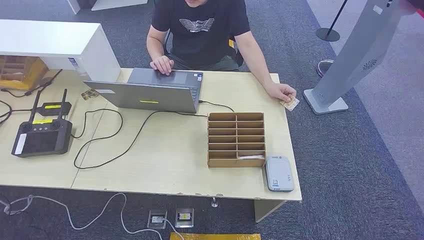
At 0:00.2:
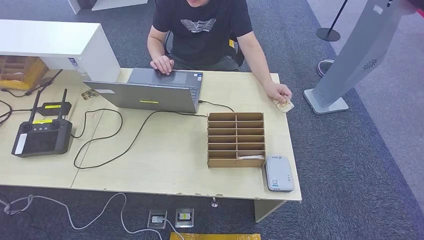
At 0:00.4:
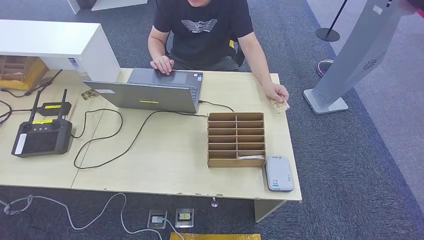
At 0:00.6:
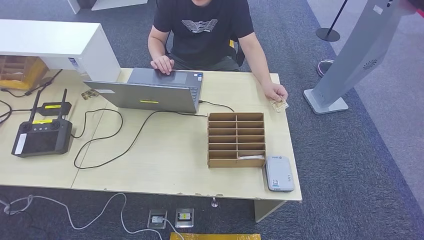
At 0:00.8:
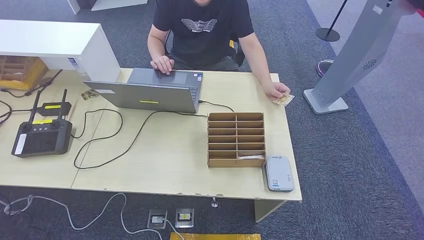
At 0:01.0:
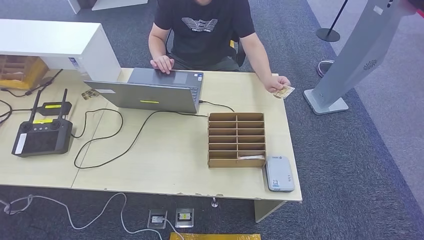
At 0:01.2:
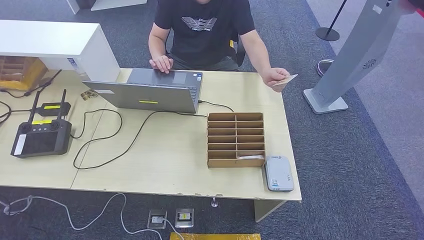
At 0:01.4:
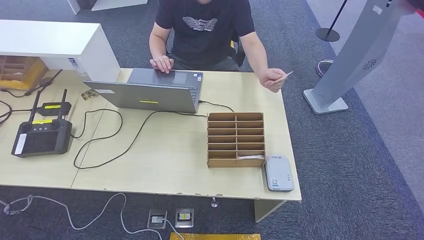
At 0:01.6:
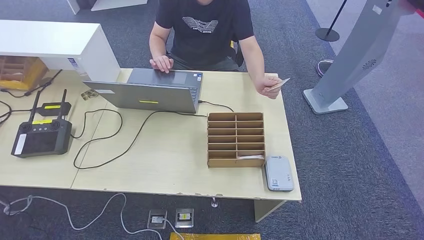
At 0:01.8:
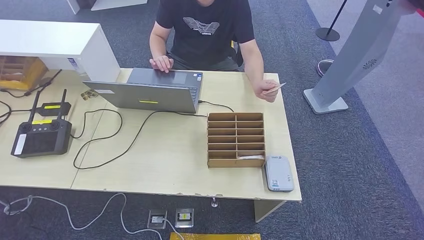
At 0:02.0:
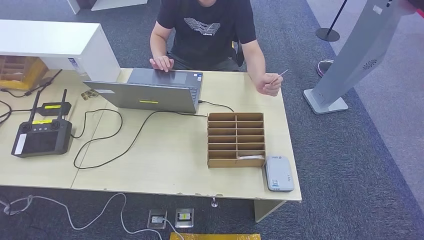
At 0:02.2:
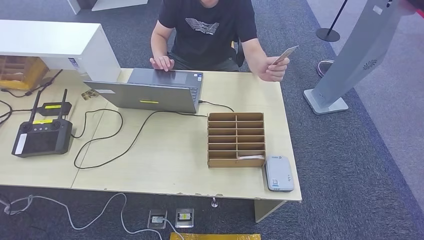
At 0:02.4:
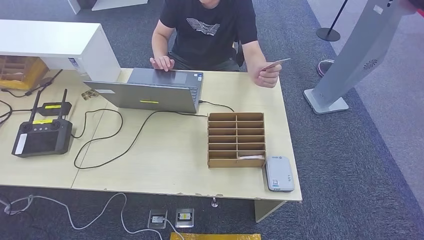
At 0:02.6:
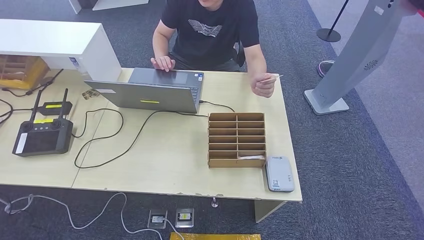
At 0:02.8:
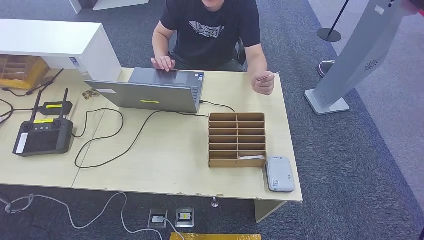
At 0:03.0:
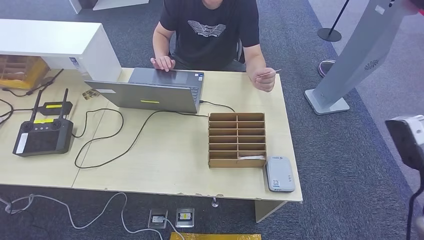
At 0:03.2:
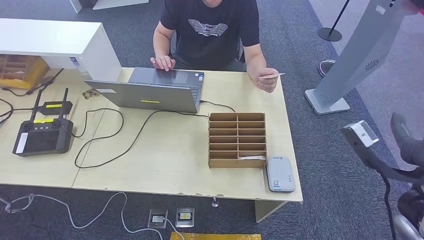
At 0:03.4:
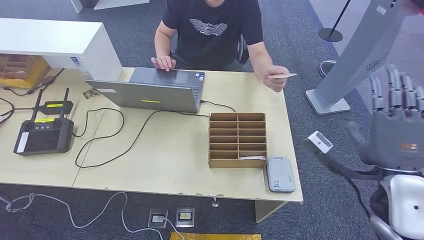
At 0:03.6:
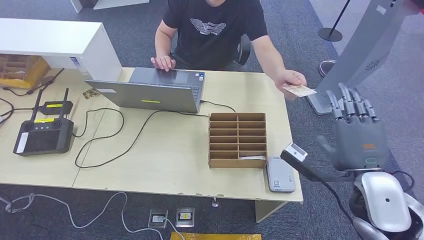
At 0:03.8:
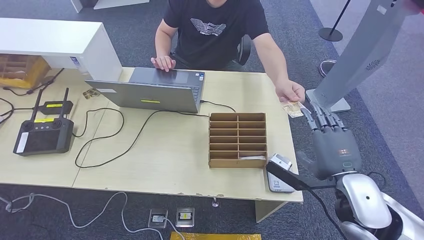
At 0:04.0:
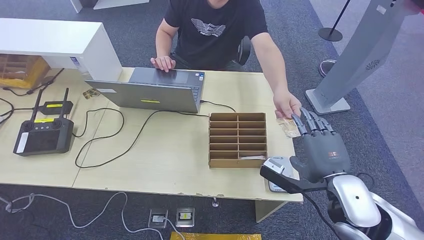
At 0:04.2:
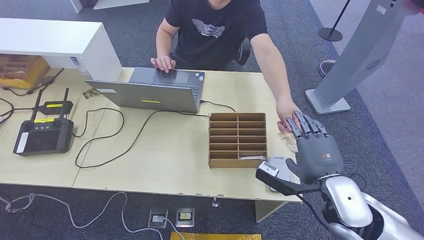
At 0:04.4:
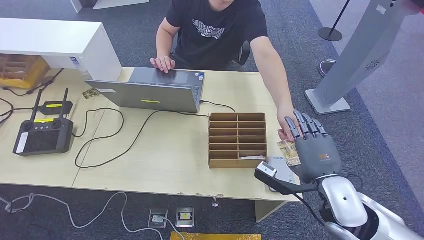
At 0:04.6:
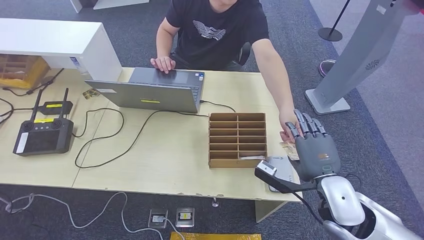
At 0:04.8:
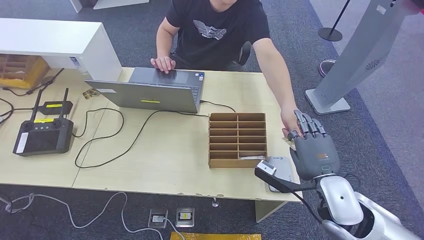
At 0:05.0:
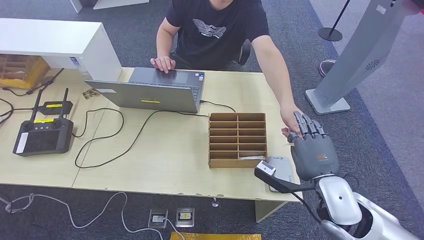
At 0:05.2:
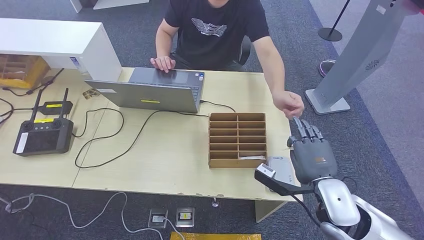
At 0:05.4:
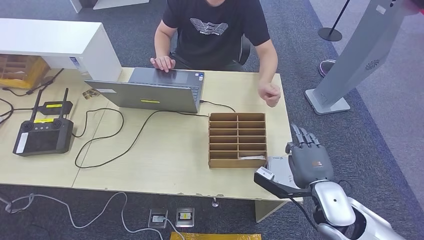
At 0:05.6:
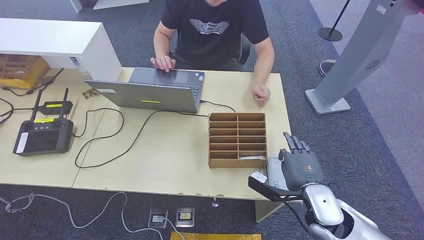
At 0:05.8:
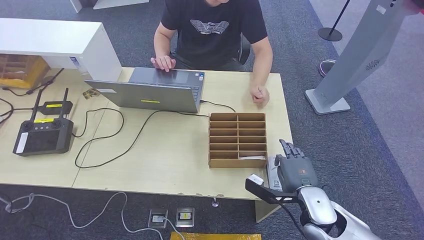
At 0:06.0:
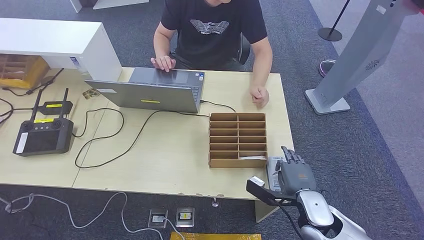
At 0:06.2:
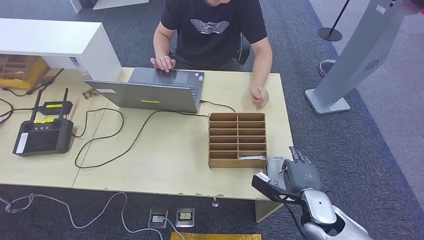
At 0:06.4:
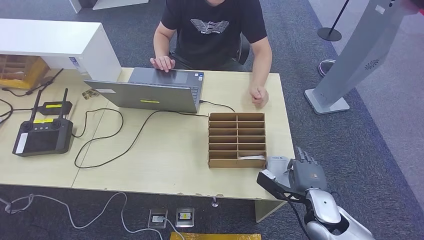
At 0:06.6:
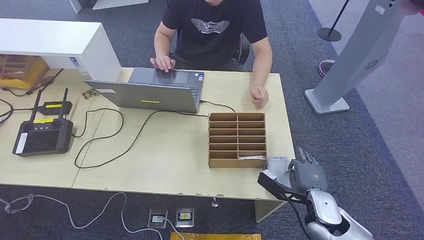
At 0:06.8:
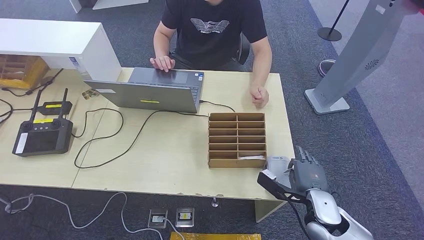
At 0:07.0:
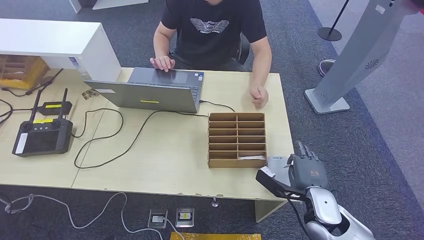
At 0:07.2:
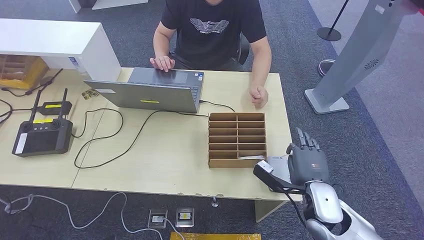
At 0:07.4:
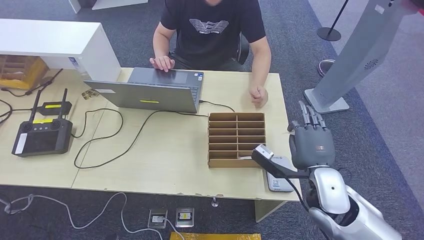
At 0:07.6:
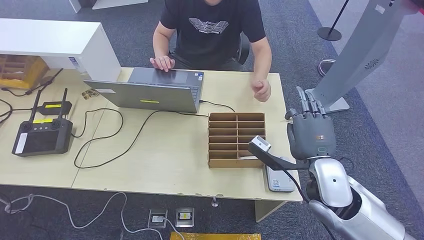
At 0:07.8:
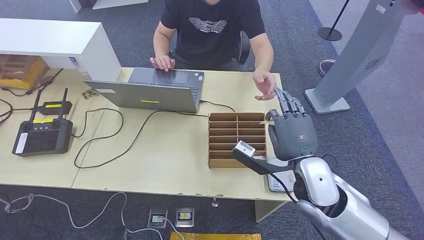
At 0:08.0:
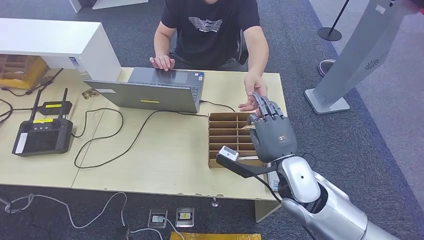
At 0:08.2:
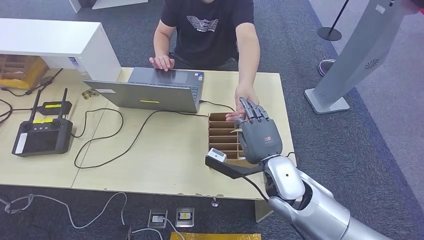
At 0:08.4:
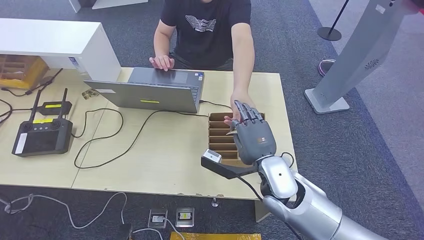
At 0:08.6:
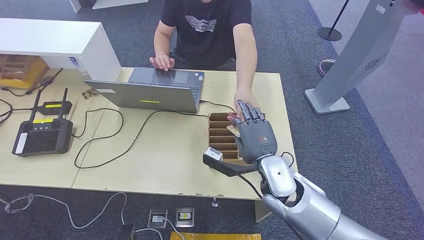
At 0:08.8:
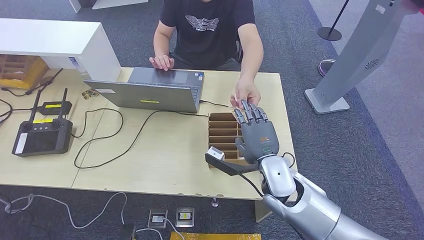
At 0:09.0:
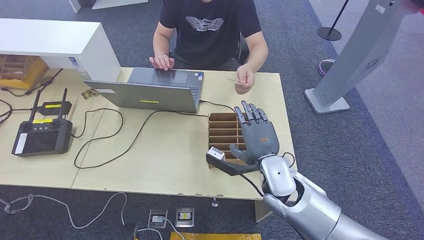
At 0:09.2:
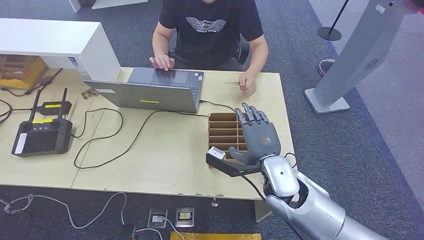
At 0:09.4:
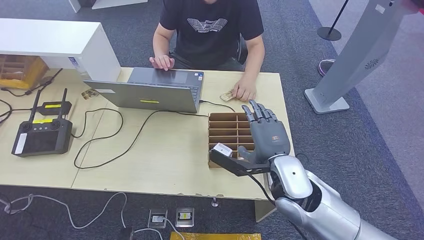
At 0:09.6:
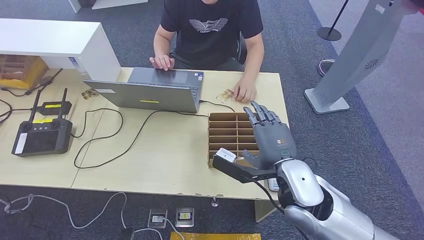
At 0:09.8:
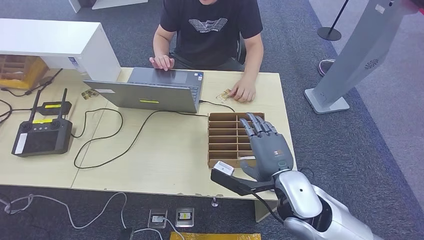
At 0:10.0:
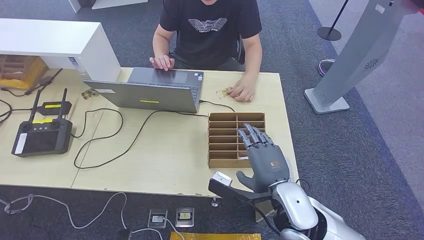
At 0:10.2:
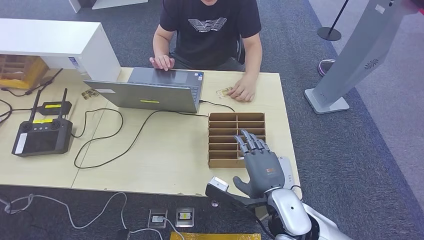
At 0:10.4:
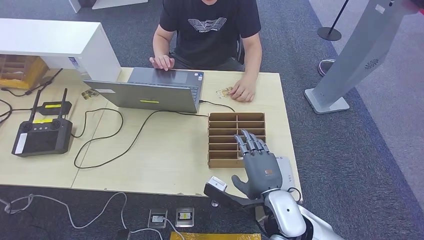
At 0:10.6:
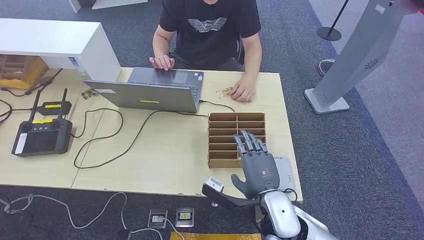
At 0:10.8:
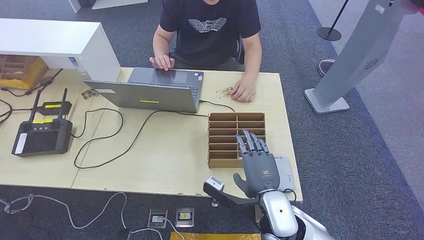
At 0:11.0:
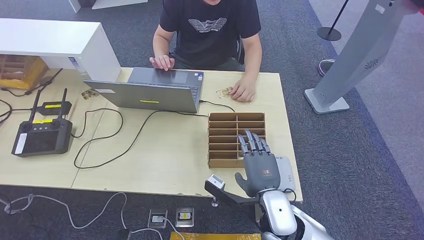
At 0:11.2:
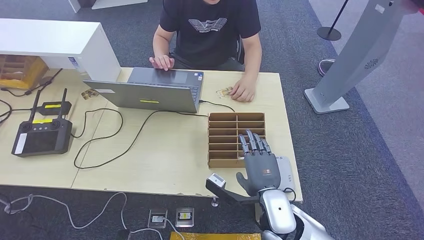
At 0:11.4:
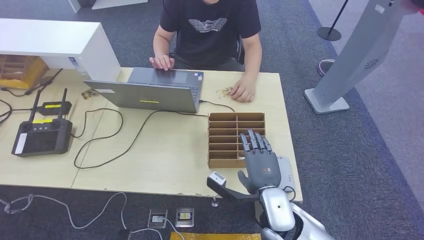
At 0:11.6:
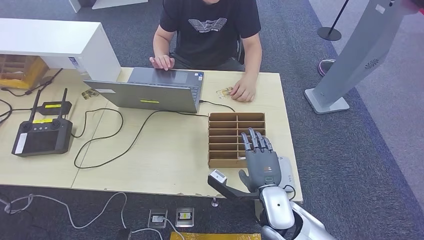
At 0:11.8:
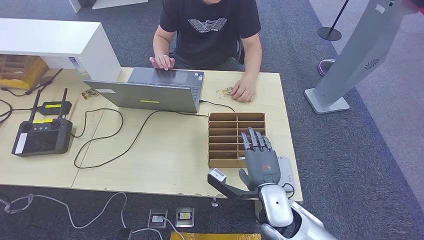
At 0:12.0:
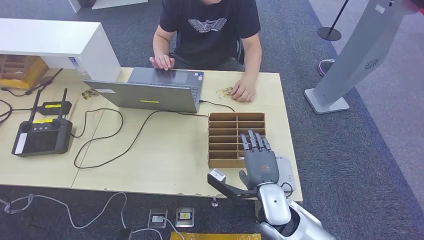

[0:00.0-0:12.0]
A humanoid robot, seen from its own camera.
Step, 0:00.0 to 0:04.8: Take the ID card from the person's hand.
Step, 0:05.0 to 0:07.0: Place the ID card on the card reader.
Step, 0:07.4 to 0:10.0: Hand the ID card to the person.
0:01.6 to 0:03.0: The right hand heads upward and forward, covering roughly 25 cm.
0:03.0 to 0:04.4: The right hand shifts approximately 15 cm to the left and downward.
0:04.4 to 0:06.0: The right hand is displaced downward by about 10 cm.
0:06.0 to 0:07.6: The right hand travels upward by roughly 10 cm.
0:07.6 to 0:09.0: The right hand goes approximately 10 cm to the left.
0:09.0 to 0:10.4: The right hand goes about 10 cm backward.
0:10.4 to 0:12.0: The hands move only a little.

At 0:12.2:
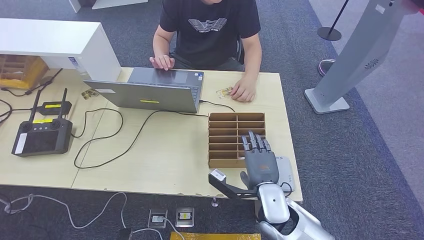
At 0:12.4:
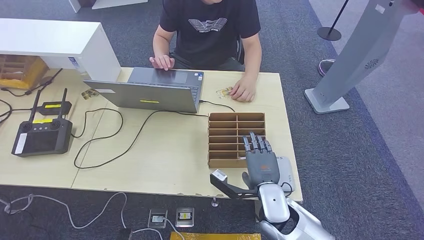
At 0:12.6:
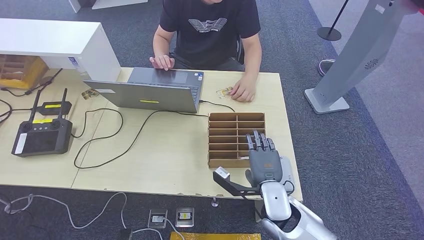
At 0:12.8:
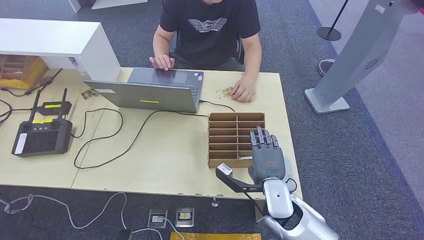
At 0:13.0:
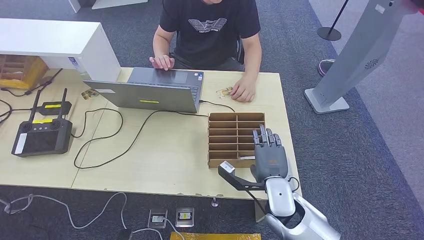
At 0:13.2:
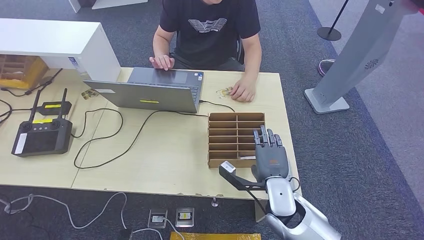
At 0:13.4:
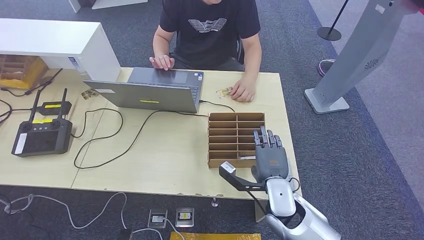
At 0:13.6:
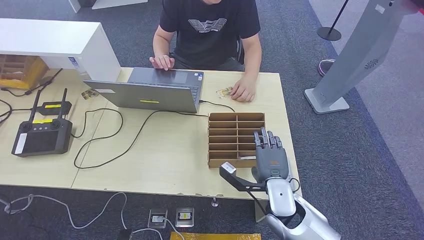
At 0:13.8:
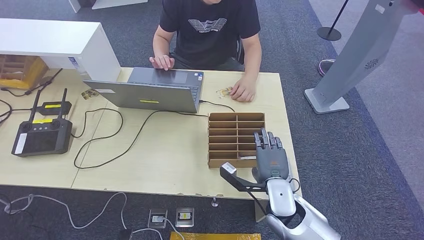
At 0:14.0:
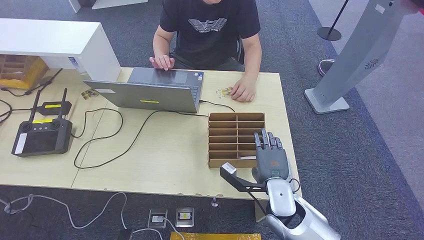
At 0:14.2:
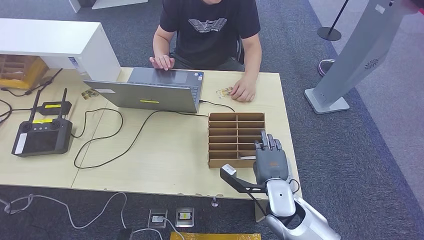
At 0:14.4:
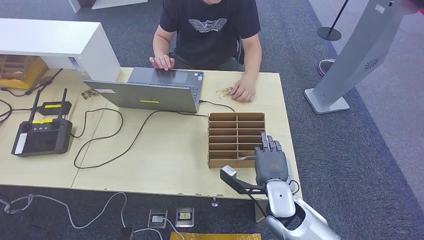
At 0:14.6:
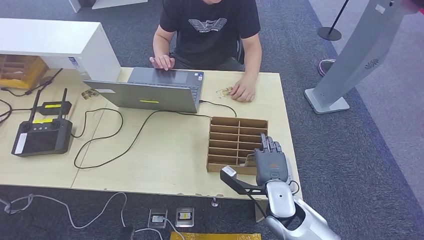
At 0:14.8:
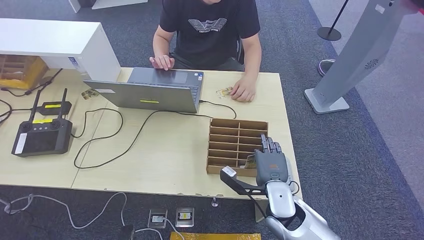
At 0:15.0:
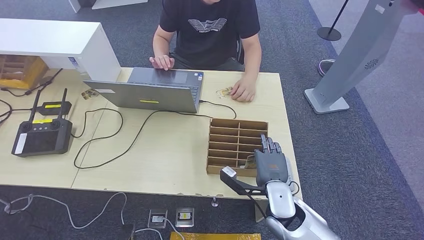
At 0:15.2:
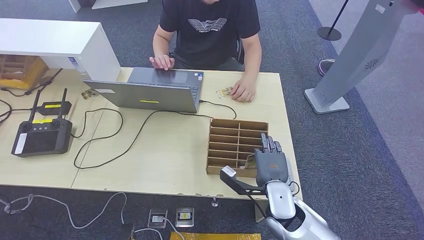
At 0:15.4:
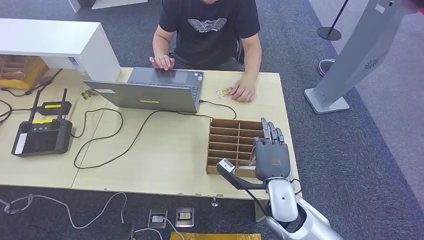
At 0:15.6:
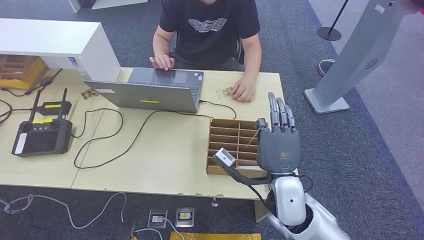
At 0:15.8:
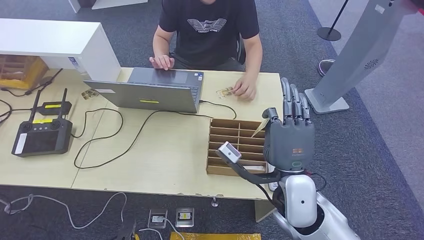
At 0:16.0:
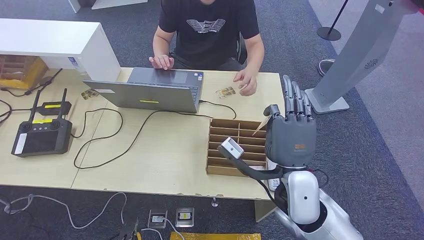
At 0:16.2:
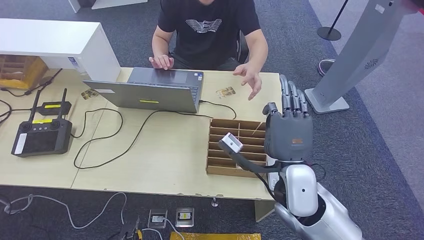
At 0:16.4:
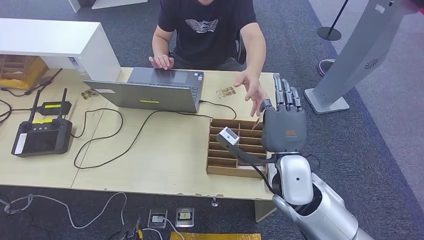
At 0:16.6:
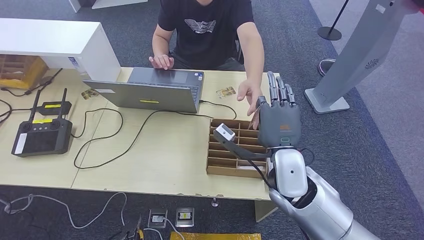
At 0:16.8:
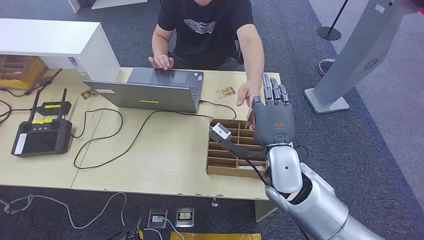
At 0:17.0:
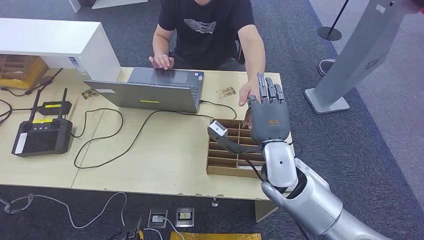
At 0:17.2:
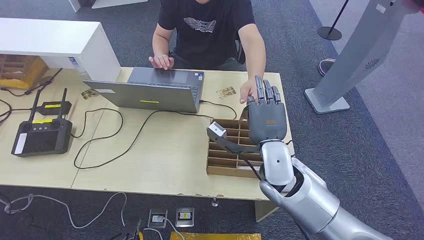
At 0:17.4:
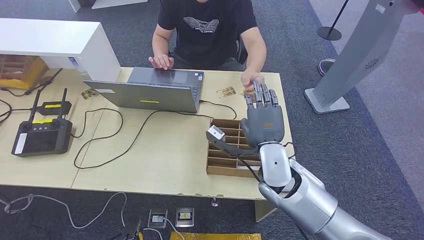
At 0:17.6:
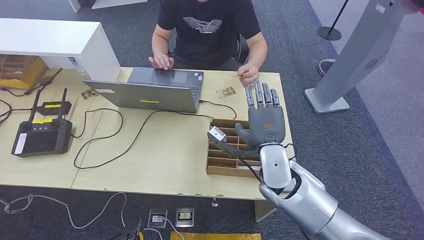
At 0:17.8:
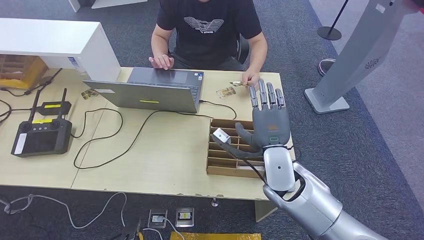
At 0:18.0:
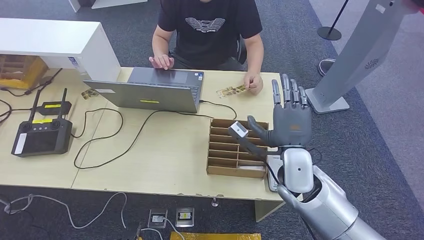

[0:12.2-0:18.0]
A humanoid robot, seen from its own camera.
Step, 0:12.2 to 0:16.2: Pick up the room key from the key card box.
Step, 0:16.4 to 0:18.0: Hand the room key to the person.
0:12.2 to 0:13.6: The hands move only a little.
0:13.6 to 0:15.0: The two hands keep their place.
0:15.0 to 0:16.6: The right hand is displaced upward by approximately 10 cm.
0:16.6 to 0:18.0: The hands move only a little.
